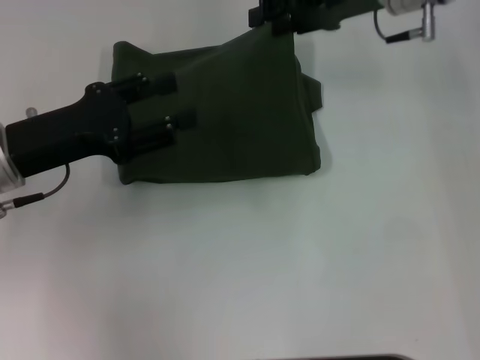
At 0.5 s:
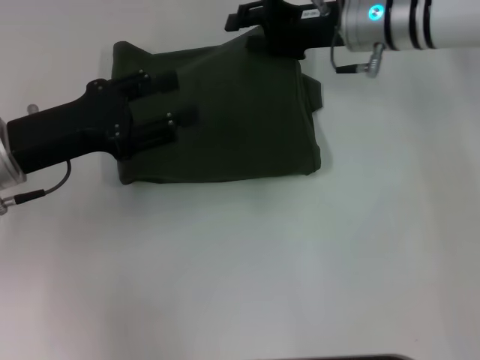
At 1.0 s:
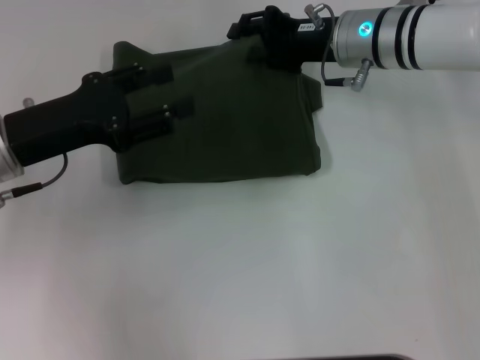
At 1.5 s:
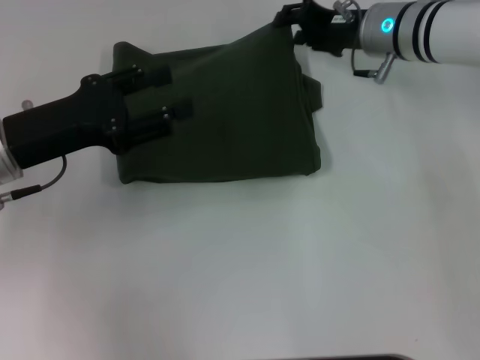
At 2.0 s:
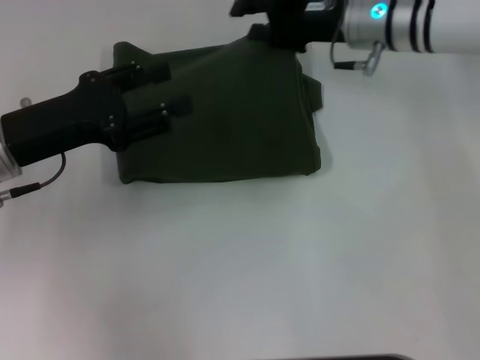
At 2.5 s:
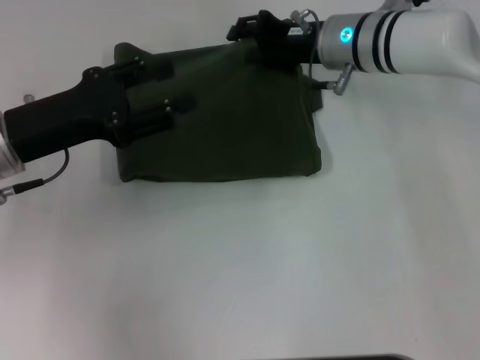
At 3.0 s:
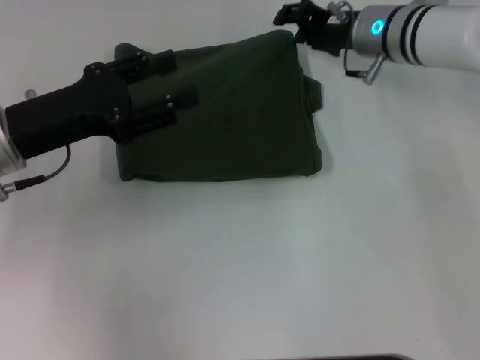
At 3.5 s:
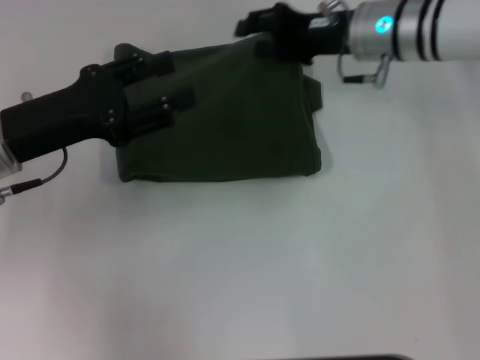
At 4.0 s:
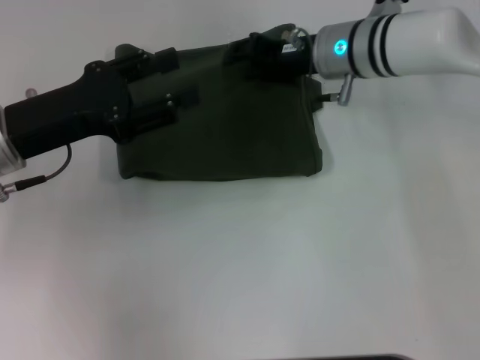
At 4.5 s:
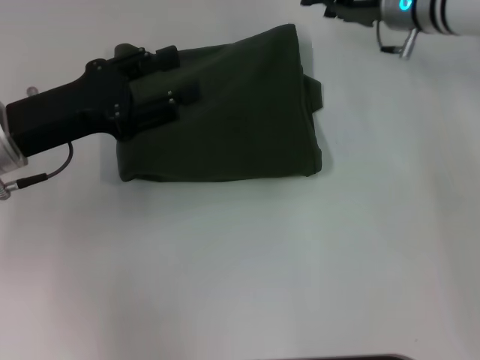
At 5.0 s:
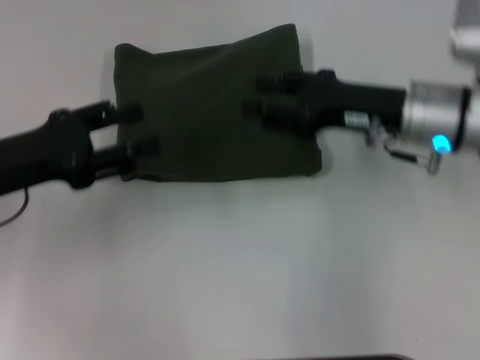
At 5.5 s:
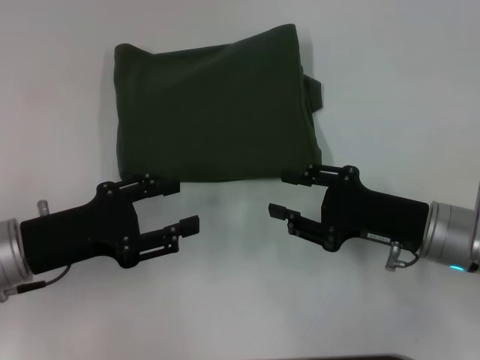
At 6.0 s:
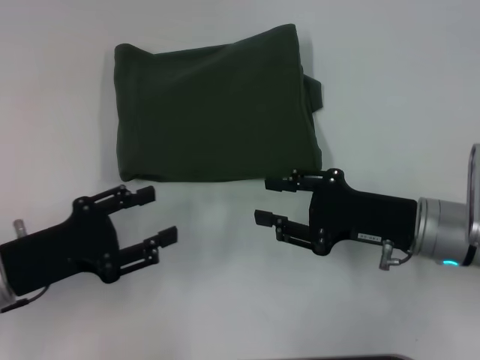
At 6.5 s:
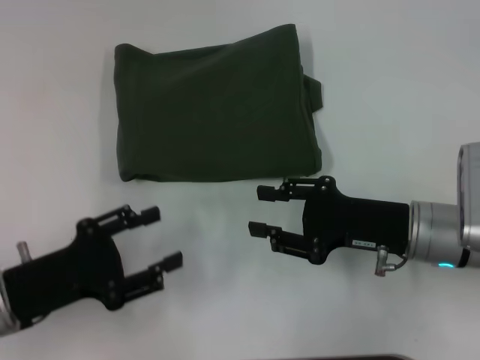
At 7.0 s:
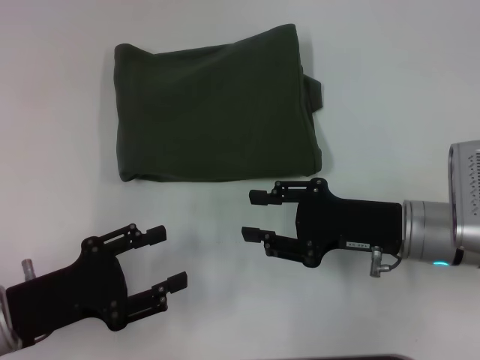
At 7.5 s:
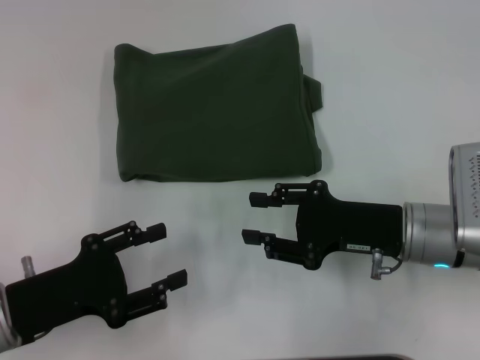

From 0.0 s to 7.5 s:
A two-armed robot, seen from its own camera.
From 0.0 s to 2.0 s: The right gripper heads downward, covering some 5 cm.
From 2.0 s to 4.0 s: There are only small adjustments of the grippers.
From 4.0 s to 5.5 s: The right gripper moves backward and to the right, approximately 20 cm, while the left gripper shifts about 10 cm backward and downward.
From 5.5 s to 7.5 s: The left gripper shifts about 5 cm backward.

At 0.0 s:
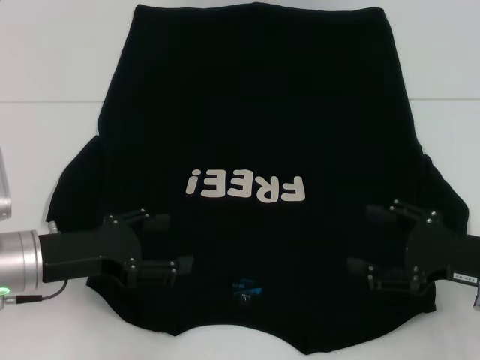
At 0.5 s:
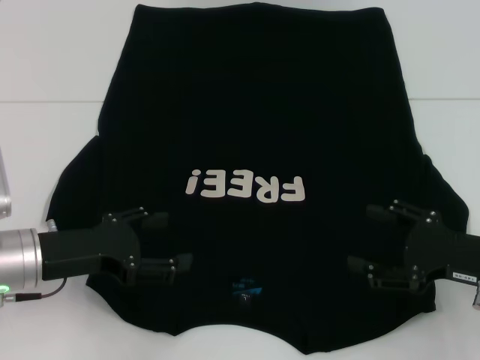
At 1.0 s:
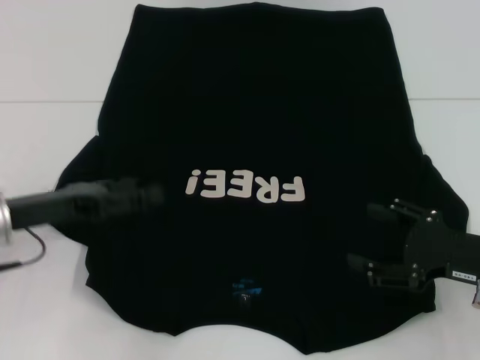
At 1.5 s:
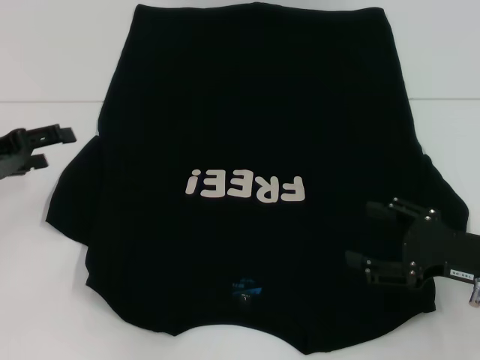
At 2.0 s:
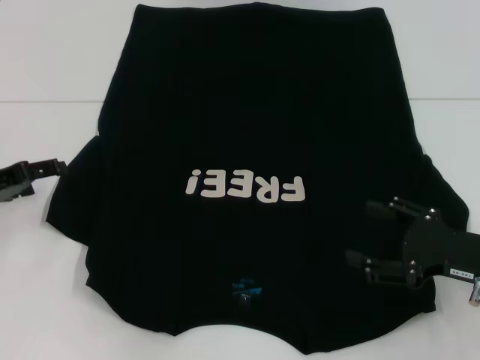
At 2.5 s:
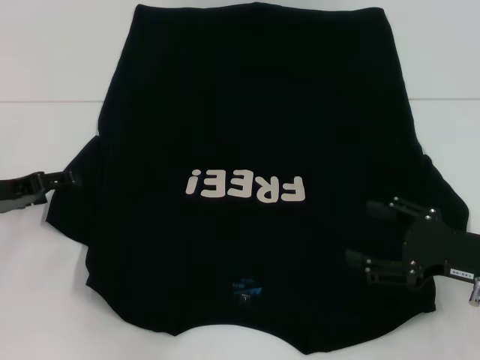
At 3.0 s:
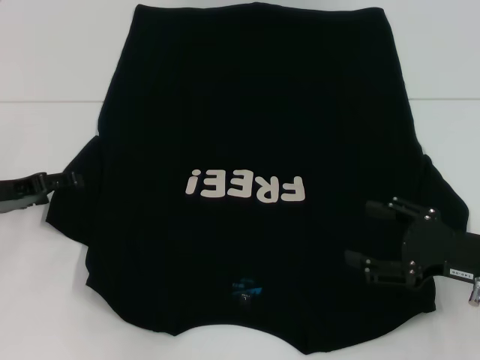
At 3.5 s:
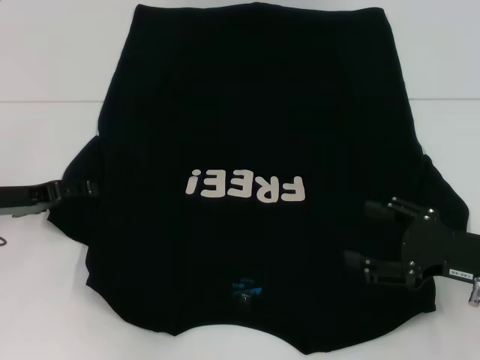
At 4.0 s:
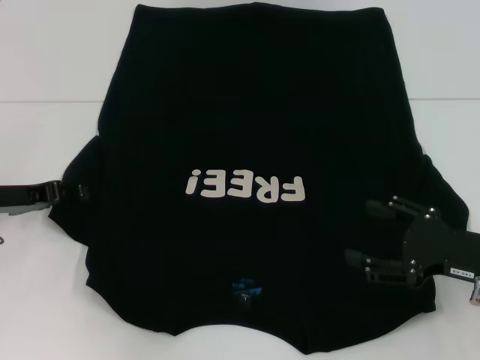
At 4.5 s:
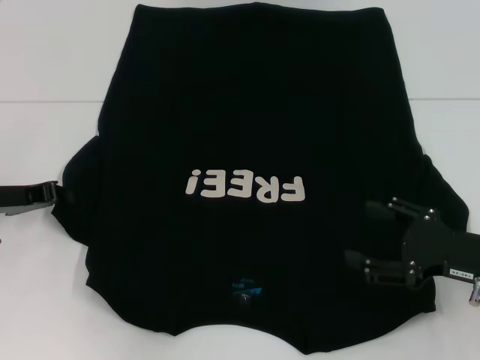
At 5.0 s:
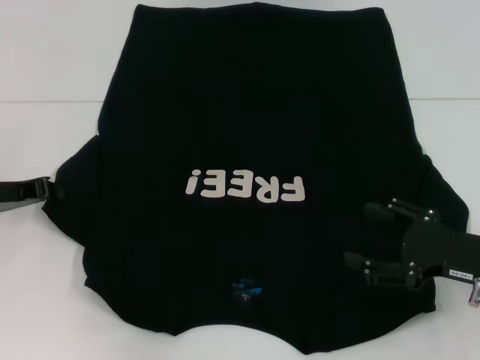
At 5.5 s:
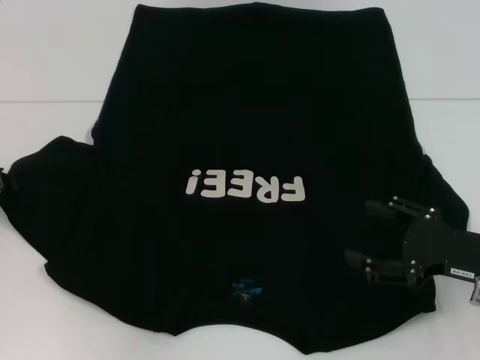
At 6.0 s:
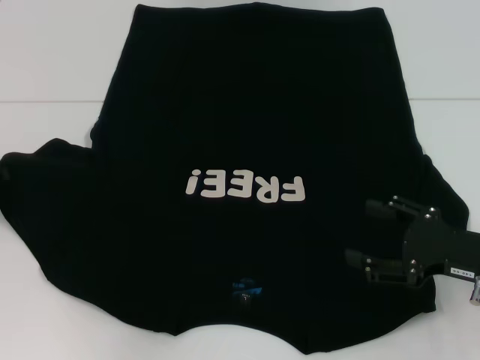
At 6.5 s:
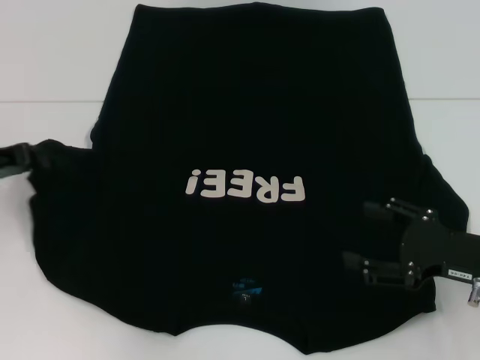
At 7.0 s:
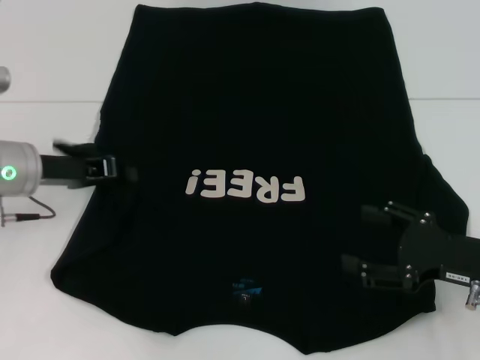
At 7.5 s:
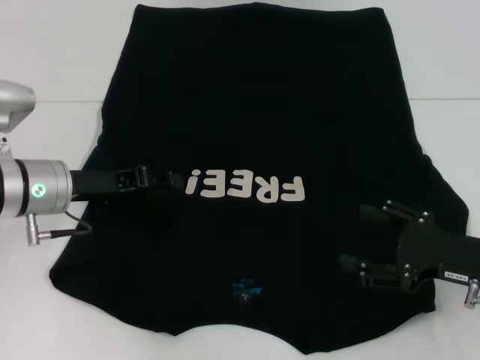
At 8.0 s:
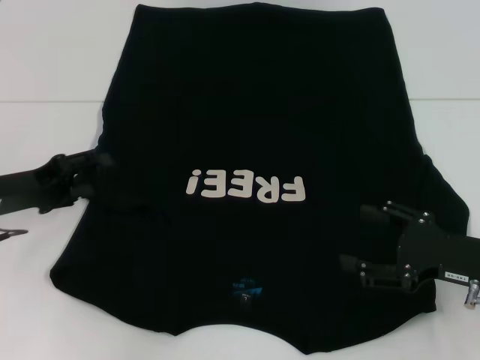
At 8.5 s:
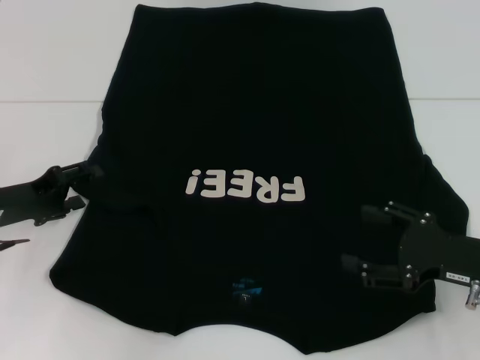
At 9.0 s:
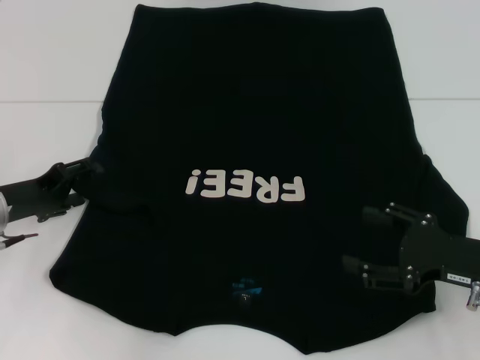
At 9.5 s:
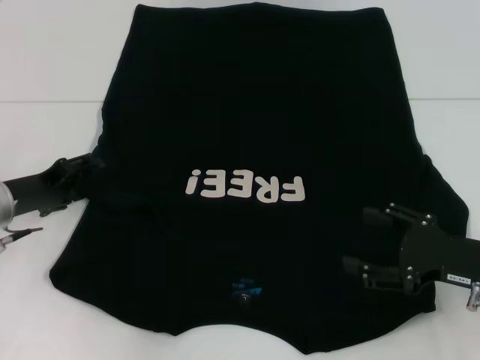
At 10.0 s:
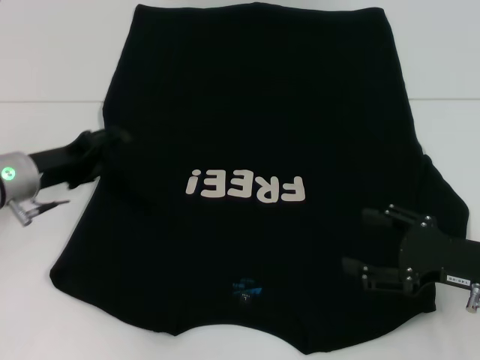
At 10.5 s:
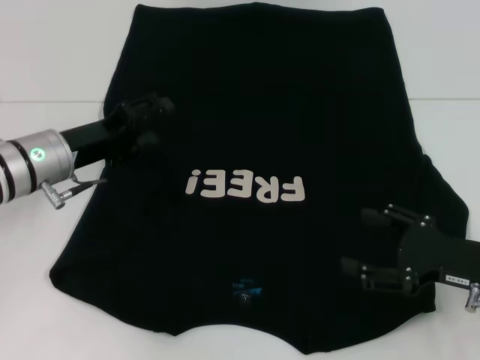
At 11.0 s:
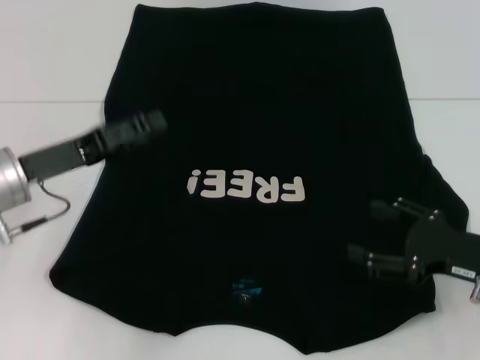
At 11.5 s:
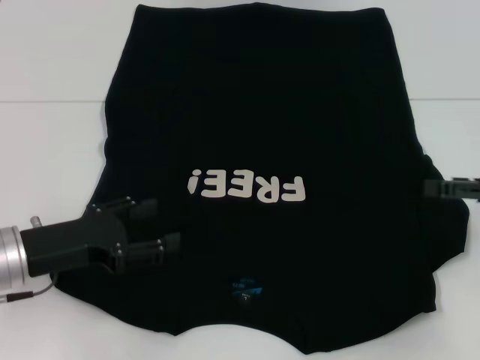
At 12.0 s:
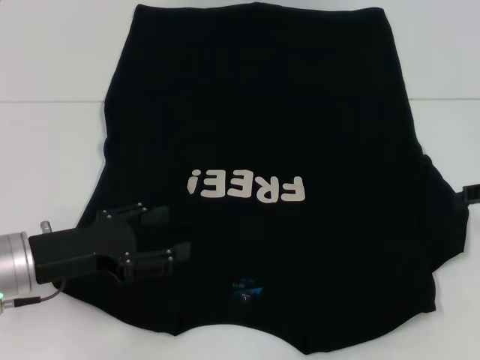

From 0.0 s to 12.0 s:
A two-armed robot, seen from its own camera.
Step, from 0.0 s to 11.0 s: Fold the bottom left sleeve with your left hand.
From 0.0 s to 2.0 s: The left gripper heads to the left and forward, covering approximately 10 cm.
From 2.0 s to 4.0 s: The grippers move only a little.
From 4.0 s to 6.0 s: The left gripper heads to the left, covering roughly 5 cm, and closes.
From 6.0 s to 8.0 s: The left gripper heads to the right, covering roughly 5 cm, and opens.
From 8.0 s to 10.0 s: The left gripper ends up about 5 cm from where it was.
From 10.0 s to 12.0 s: The right gripper goes roughly 15 cm upward, forward and to the right; the left gripper shifts about 10 cm backward.

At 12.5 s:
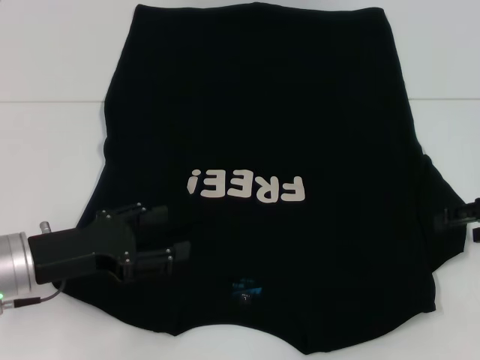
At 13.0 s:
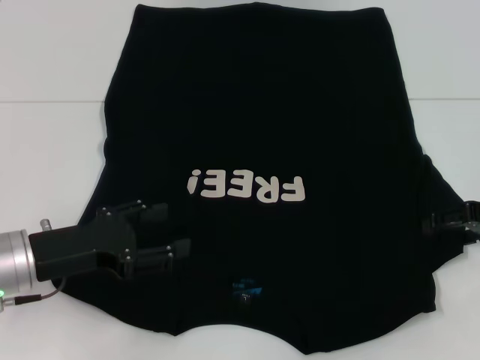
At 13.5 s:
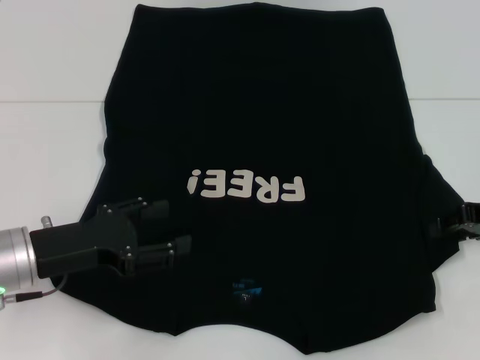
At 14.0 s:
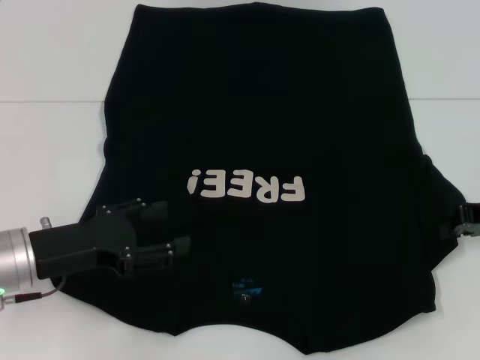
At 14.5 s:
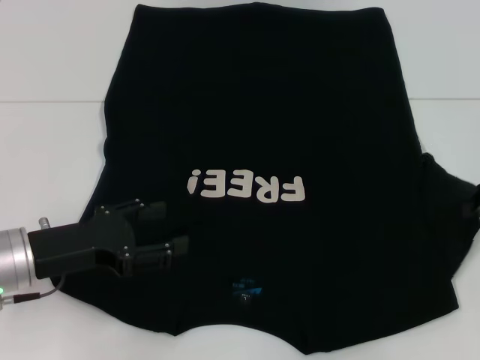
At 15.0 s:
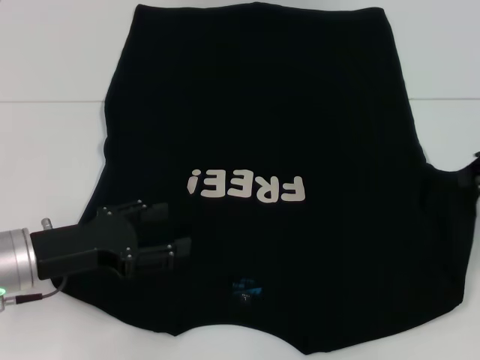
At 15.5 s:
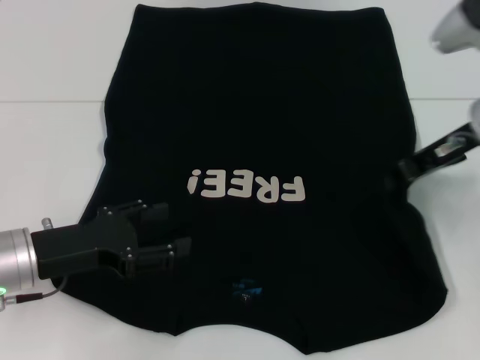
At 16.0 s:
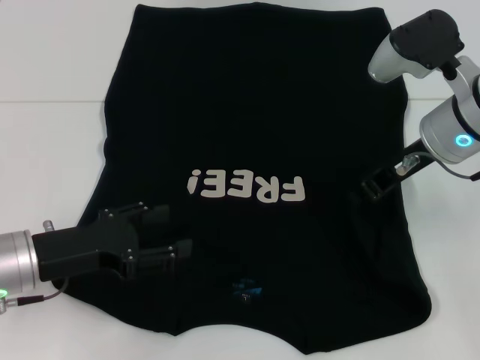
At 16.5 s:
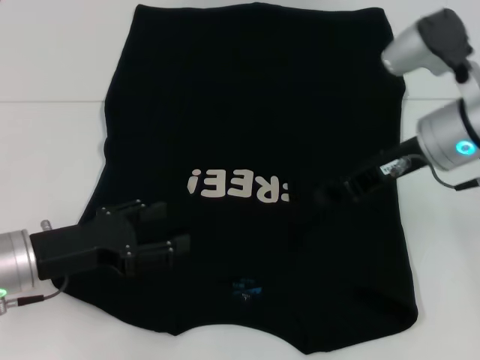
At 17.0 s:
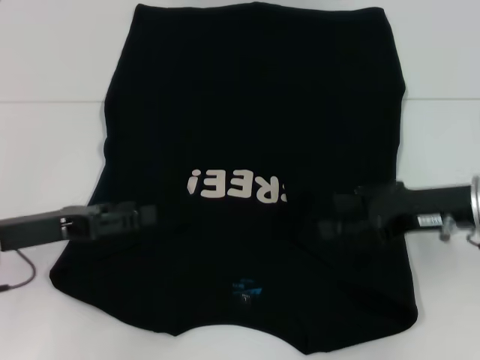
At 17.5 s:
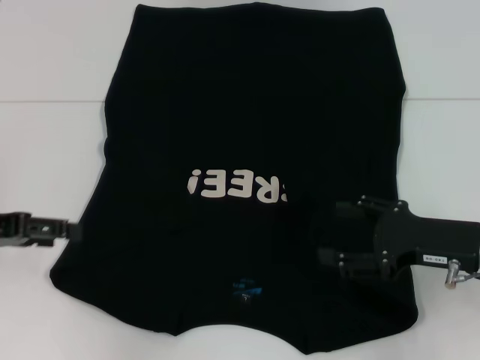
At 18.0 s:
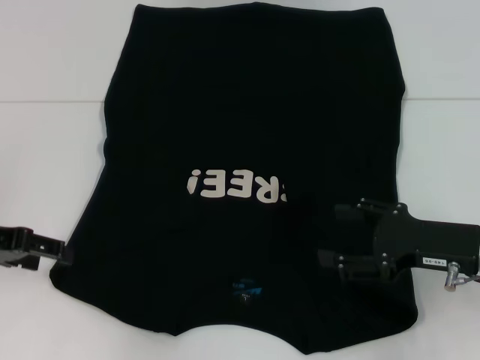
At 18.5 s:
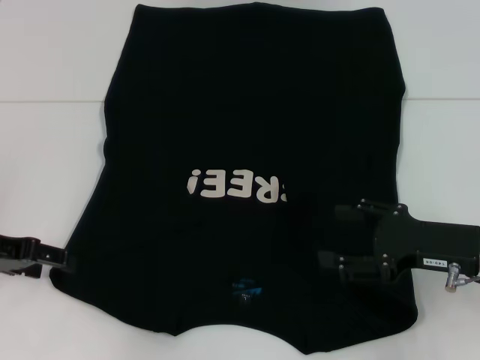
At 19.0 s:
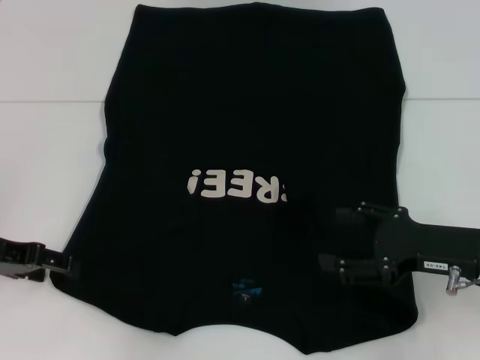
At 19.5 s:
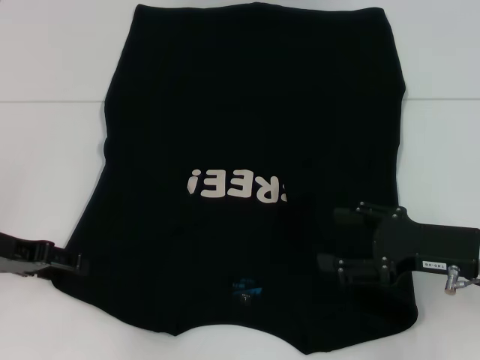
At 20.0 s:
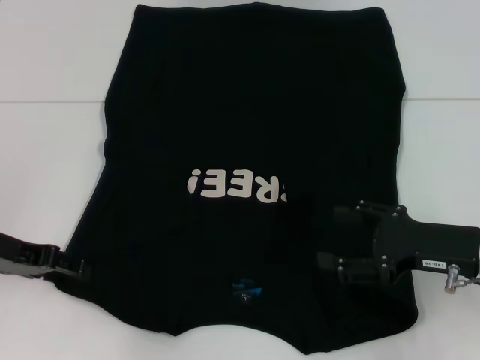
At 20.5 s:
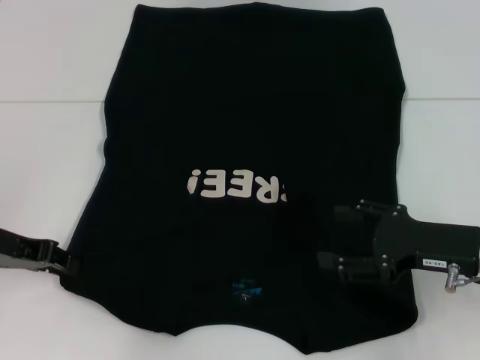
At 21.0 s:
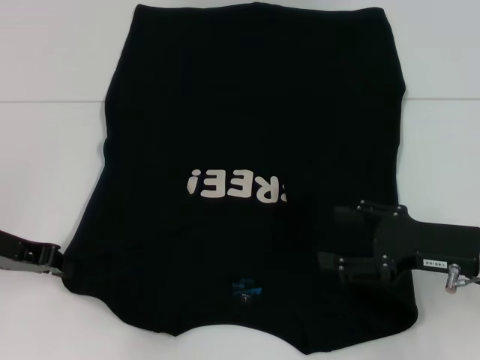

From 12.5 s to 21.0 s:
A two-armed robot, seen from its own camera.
Step, from 12.5 s to 16.0 s: Fold the bottom right sleeve with your right hand.
From 12.5 s to 14.5 s: The right gripper closes up.
From 14.5 s to 16.5 s: The right gripper travels to the left by some 15 cm.
From 16.5 s to 19.0 s: The right gripper goes some 15 cm backward, downward and to the right, and opens its fingers; the left gripper heads to the left, covering some 5 cm.
From 19.0 s to 21.0 s: The left gripper closes.
